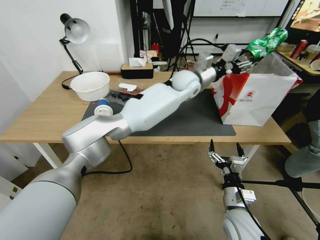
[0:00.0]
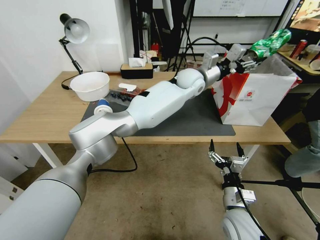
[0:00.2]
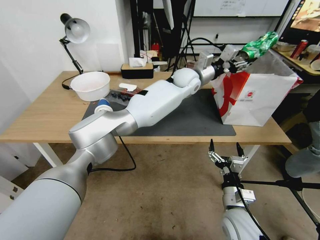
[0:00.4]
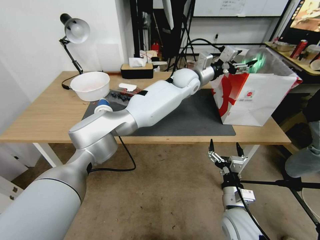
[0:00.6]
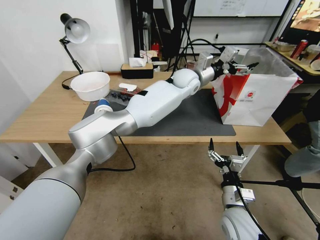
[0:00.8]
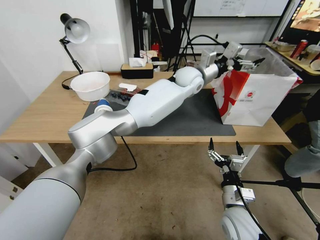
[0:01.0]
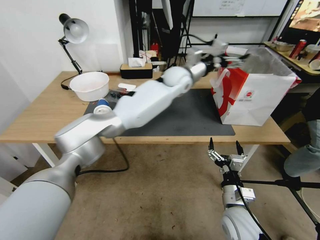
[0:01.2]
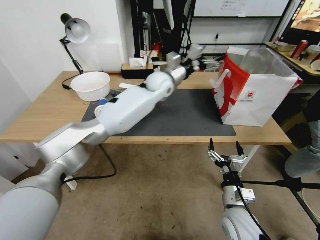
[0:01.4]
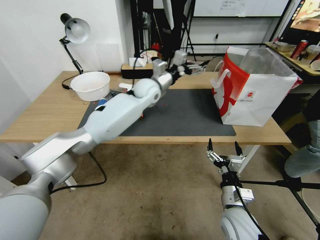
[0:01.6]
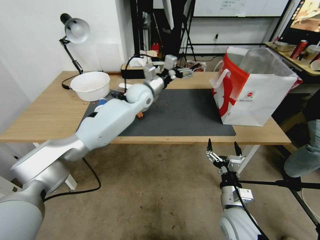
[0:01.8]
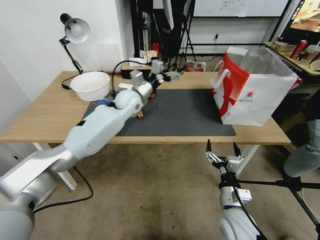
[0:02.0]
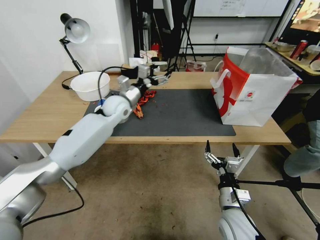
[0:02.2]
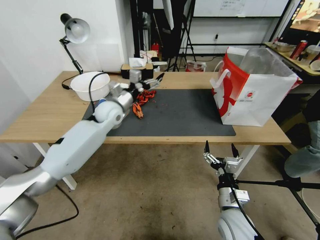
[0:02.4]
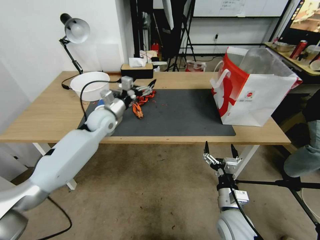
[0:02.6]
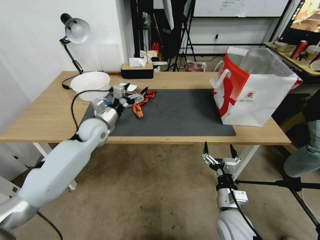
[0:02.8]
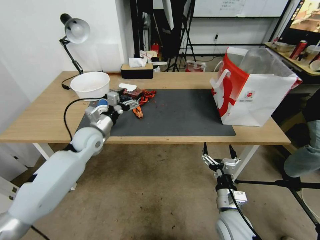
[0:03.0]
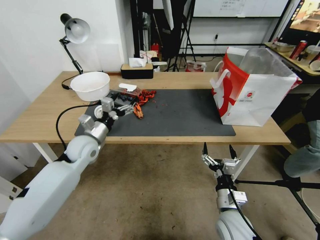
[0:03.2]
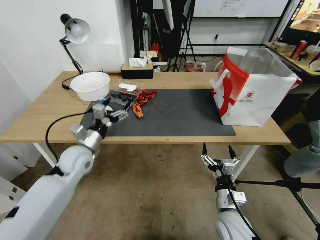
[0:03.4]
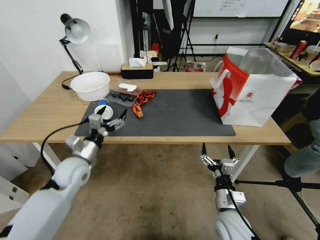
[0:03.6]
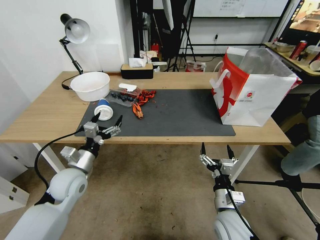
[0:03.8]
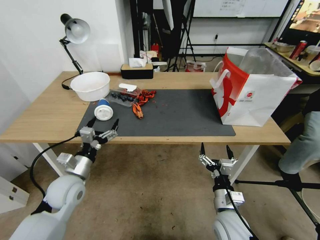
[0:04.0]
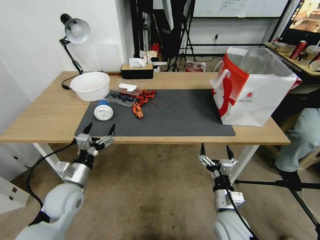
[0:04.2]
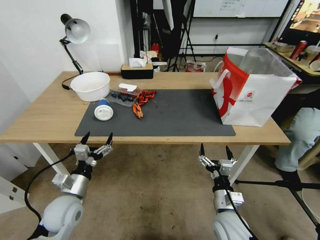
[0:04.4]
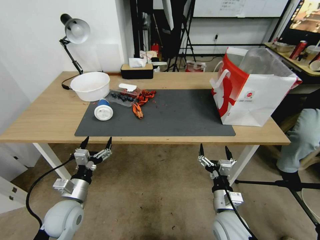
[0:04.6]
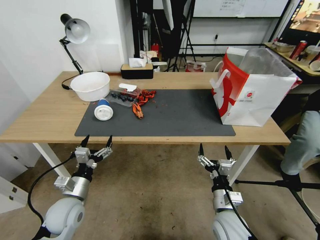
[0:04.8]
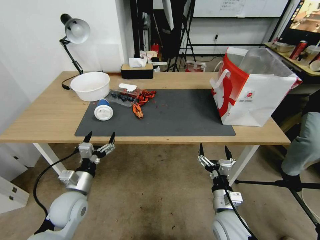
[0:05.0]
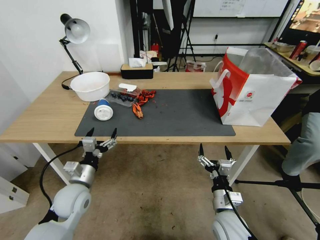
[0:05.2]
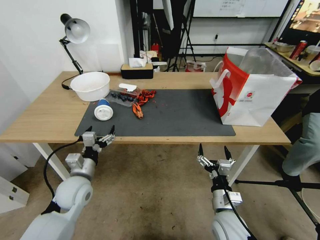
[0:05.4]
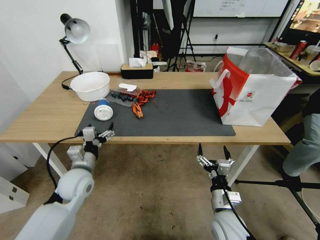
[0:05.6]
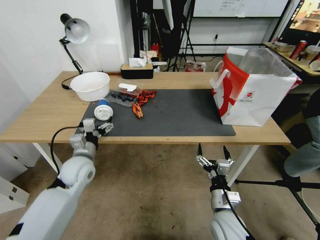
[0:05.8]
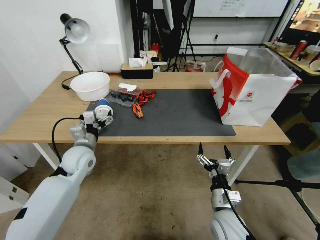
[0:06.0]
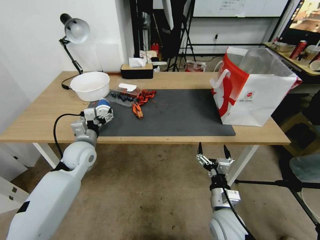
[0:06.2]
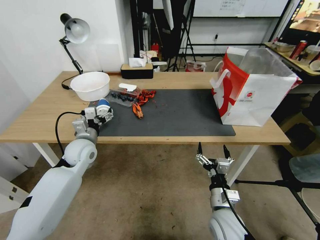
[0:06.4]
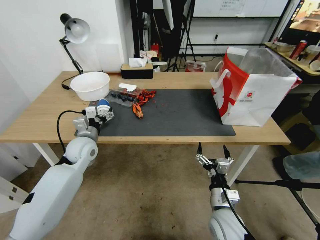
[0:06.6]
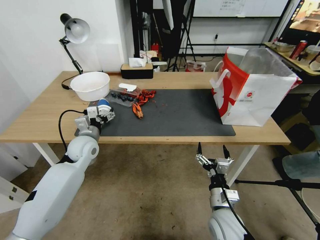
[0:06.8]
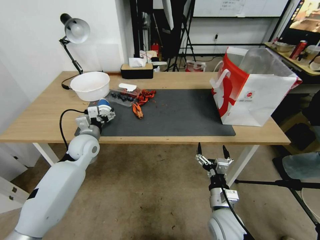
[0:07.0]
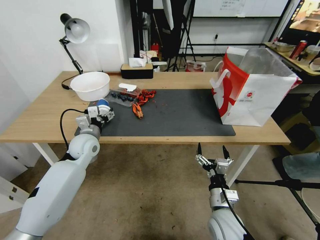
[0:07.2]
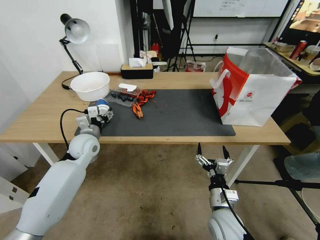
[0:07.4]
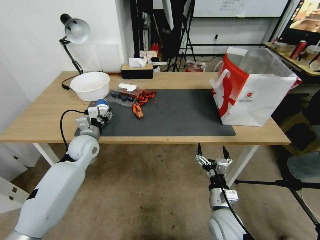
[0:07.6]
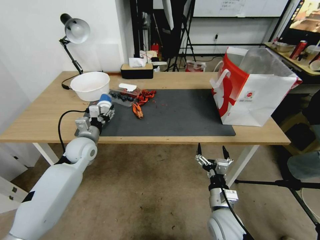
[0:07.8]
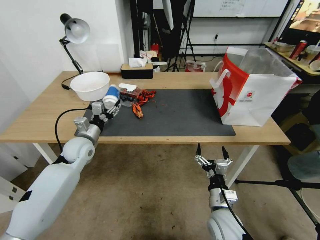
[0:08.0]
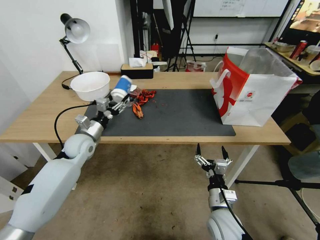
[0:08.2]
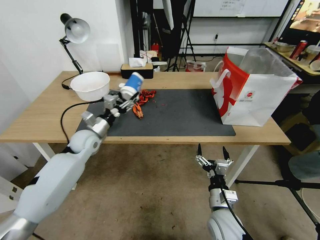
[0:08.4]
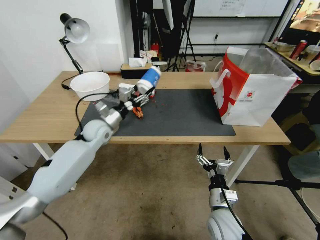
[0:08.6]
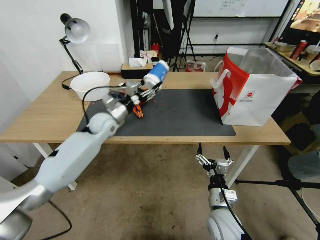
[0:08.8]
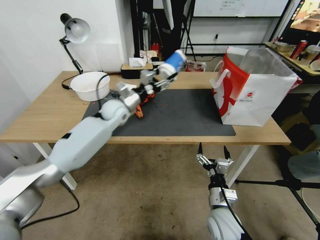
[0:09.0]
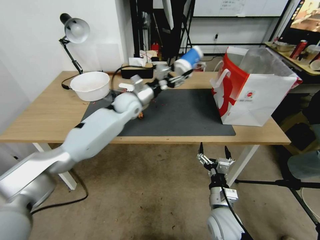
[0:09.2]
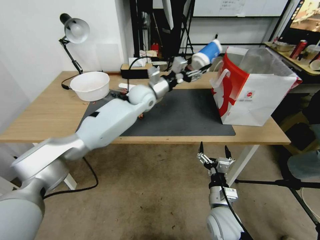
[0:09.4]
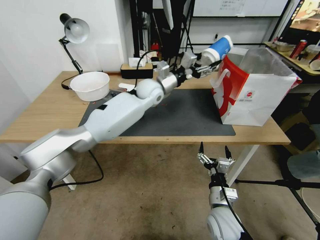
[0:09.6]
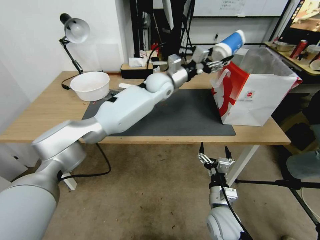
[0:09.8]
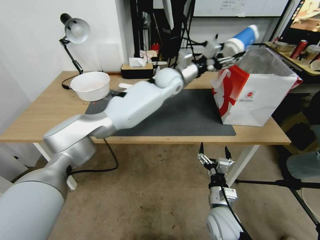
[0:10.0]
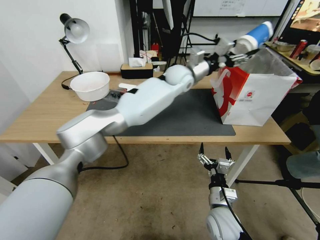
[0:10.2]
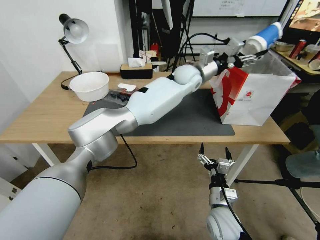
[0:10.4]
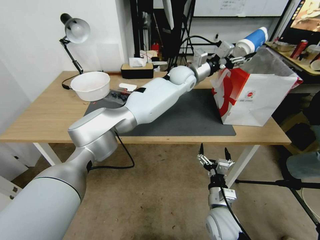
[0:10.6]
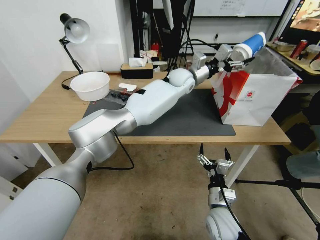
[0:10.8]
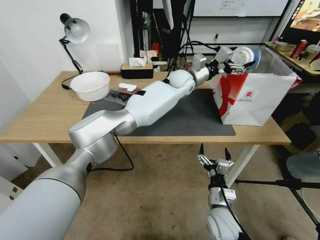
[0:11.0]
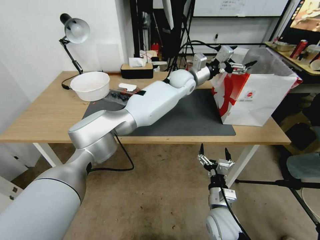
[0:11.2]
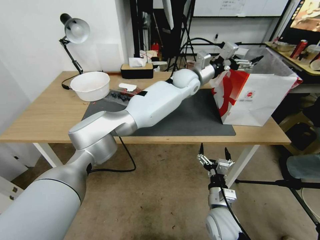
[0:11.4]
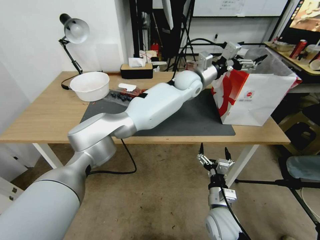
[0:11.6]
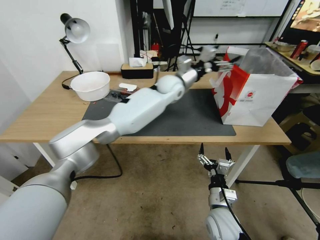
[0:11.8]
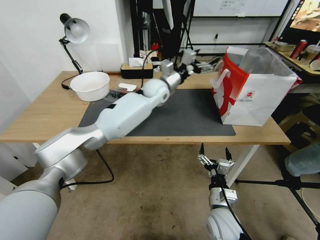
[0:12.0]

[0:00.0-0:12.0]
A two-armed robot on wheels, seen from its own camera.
0:00.0 to 0:01.6: The left gripper goes some 15 cm to the left, and opens its fingers.
0:01.6 to 0:03.0: The left gripper is displaced to the left, backward and downward by some 25 cm.
0:03.0 to 0:04.4: The left gripper shifts roughly 20 cm backward and downward.
0:04.4 to 0:06.0: The left gripper shifts about 15 cm forward and upward.
0:06.0 to 0:07.6: The left gripper travels forward by about 5 cm, and closes.
0:07.6 to 0:09.0: The left gripper heads forward, to the right and upward, covering about 15 cm.
0:09.0 to 0:10.4: The left gripper heads to the right and upward, covering approximately 30 cm.
0:10.4 to 0:12.0: The left gripper shifts about 15 cm to the left and downward, and opens its fingers.

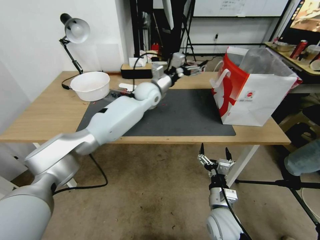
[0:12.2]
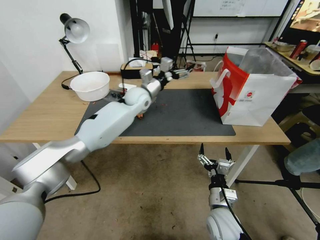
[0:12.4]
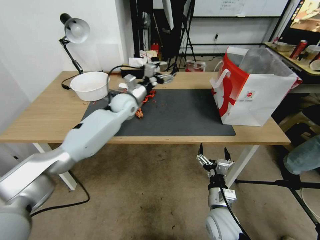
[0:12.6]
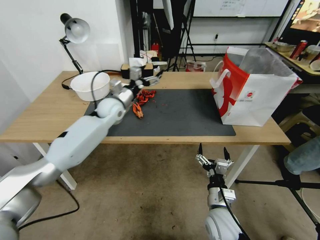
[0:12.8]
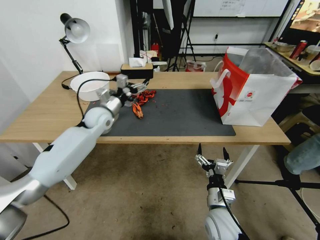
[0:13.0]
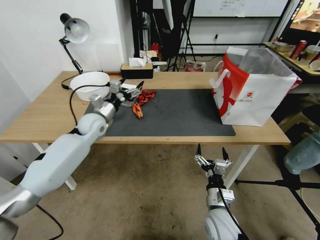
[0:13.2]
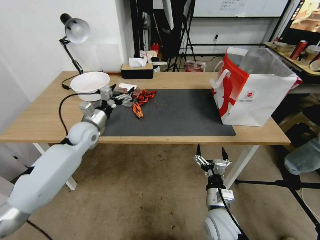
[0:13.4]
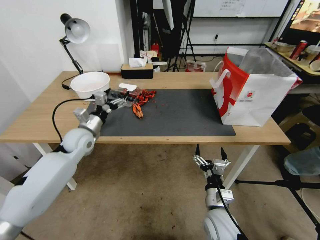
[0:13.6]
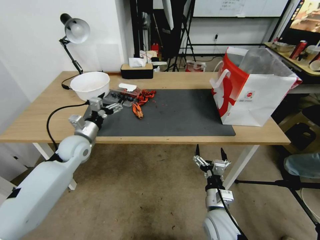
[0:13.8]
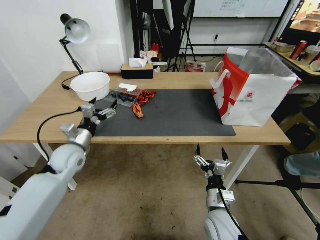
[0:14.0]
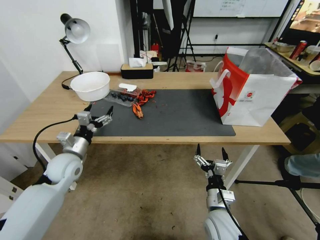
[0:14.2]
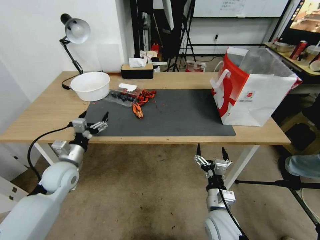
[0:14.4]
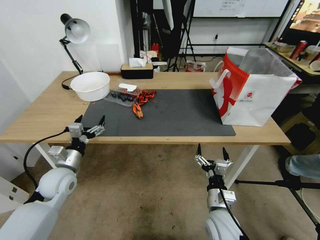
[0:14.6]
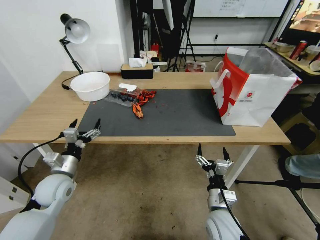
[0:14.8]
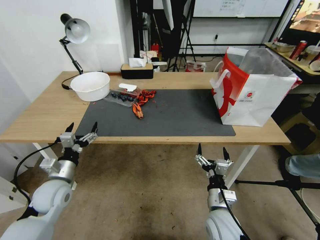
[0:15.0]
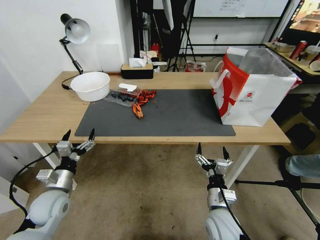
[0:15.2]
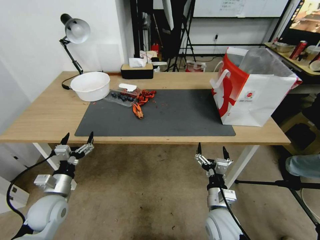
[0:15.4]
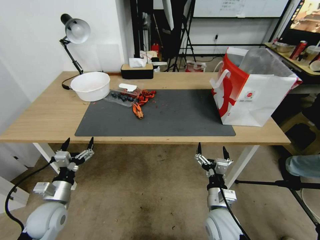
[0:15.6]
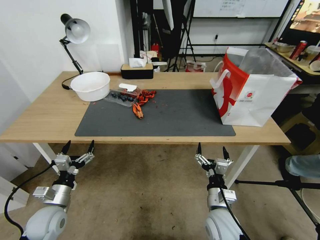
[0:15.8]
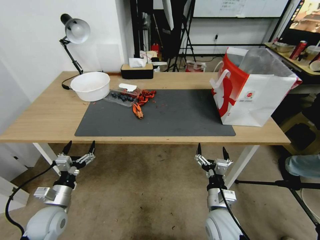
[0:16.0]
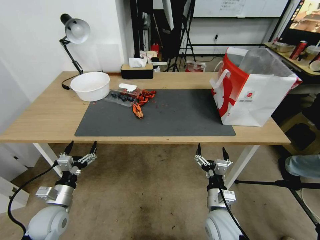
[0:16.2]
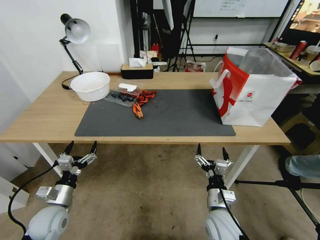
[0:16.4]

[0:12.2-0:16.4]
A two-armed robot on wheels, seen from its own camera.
0:12.2 to 0:13.6: The left gripper travels to the left and backward by about 30 cm.
0:13.6 to 0:15.0: The left gripper shifts roughly 20 cm backward and downward.
0:15.0 to 0:16.4: The left gripper shifts approximately 10 cm backward and downward.
